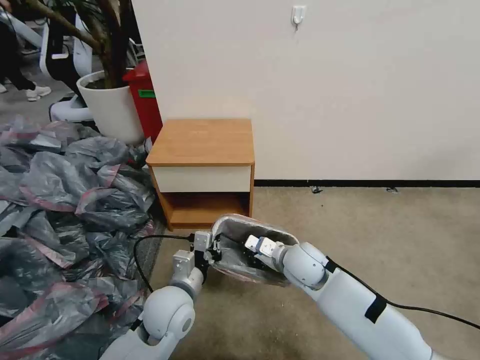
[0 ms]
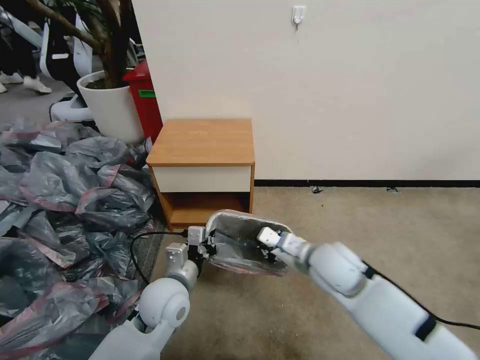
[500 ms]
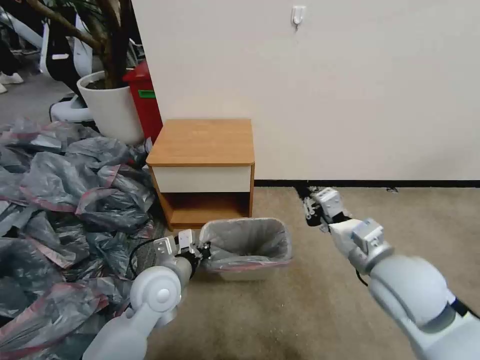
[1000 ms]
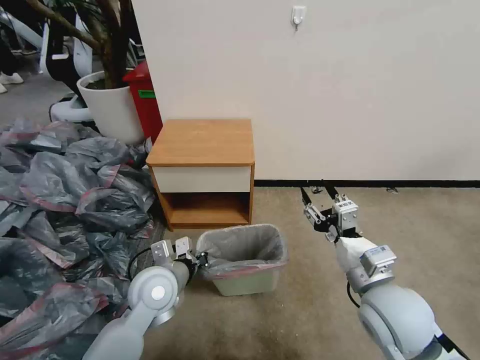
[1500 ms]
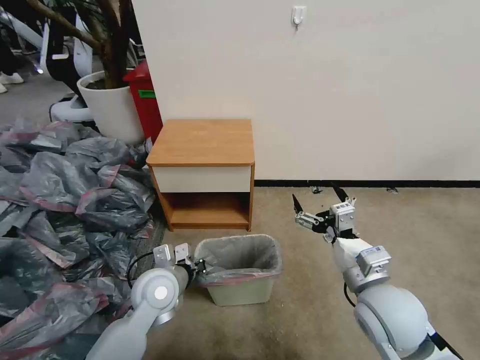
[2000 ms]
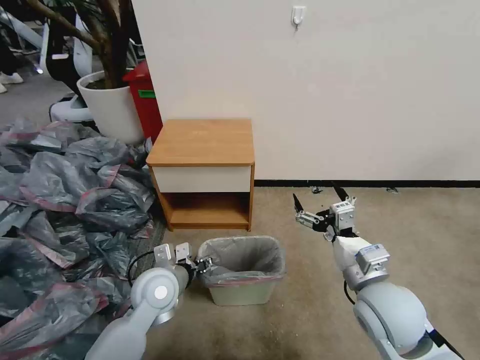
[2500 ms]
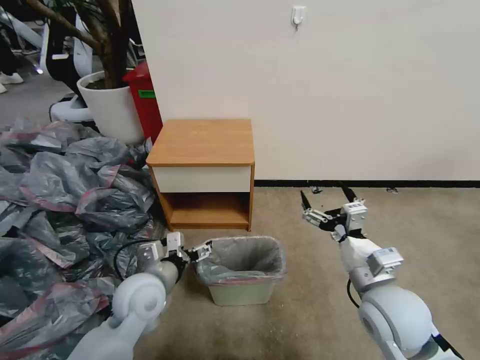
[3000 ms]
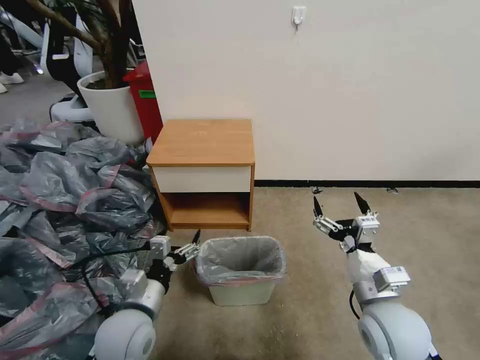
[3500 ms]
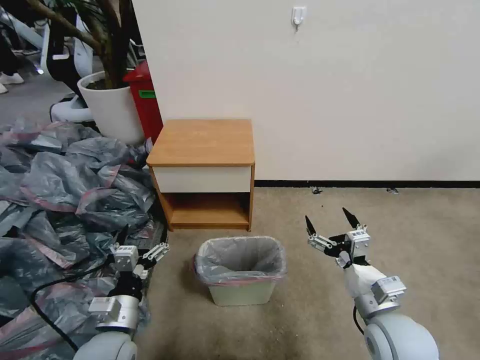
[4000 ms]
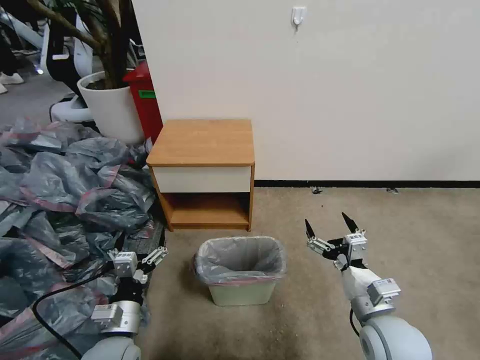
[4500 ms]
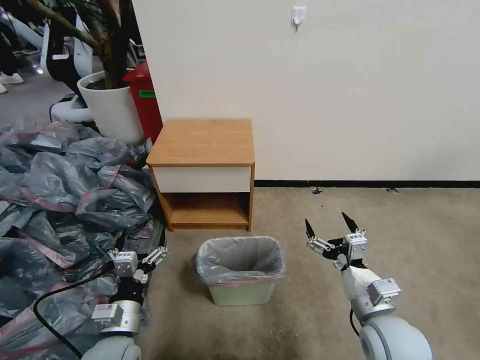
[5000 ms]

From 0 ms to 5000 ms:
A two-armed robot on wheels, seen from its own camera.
Task of the whole recording: Pick up the garbage bag from the table and place it over the trash can.
From 0 ms to 2500 ms: The right gripper is displaced backward, to the right and upward by approximately 20 cm, and opens, while the left gripper moves approximately 5 cm, and opens up.
From 2500 ms to 5000 ms: The right gripper shifts some 5 cm downward. Meanwhile the left gripper heads backward and to the left, covering about 15 cm, and opens up.

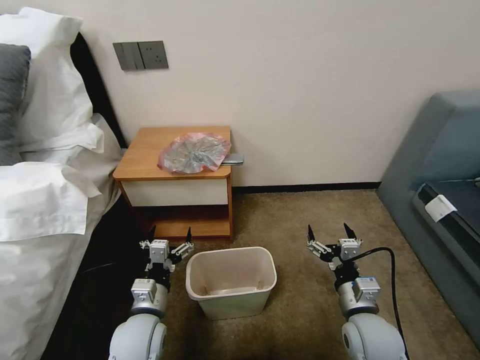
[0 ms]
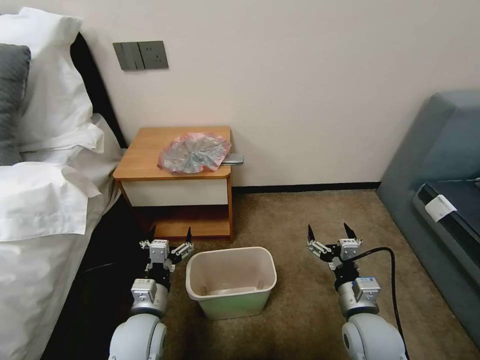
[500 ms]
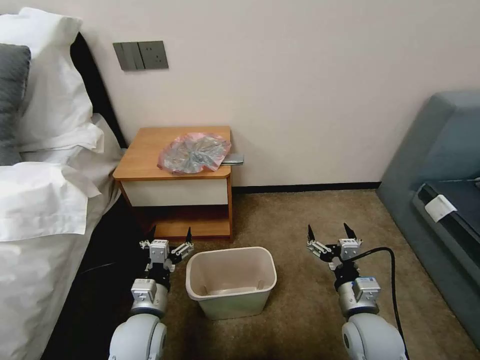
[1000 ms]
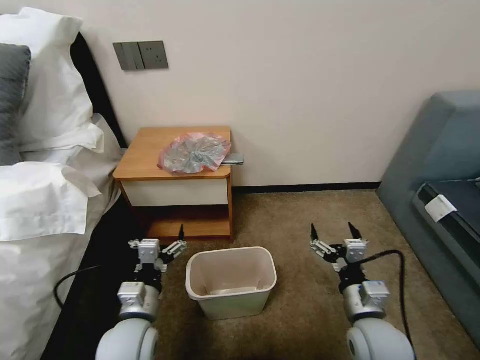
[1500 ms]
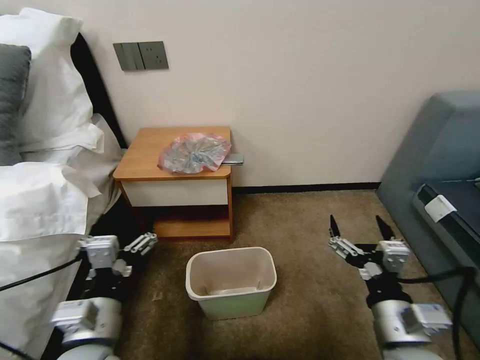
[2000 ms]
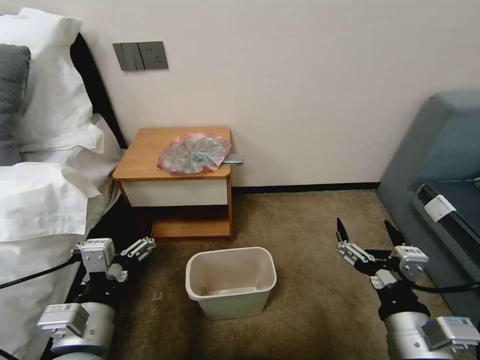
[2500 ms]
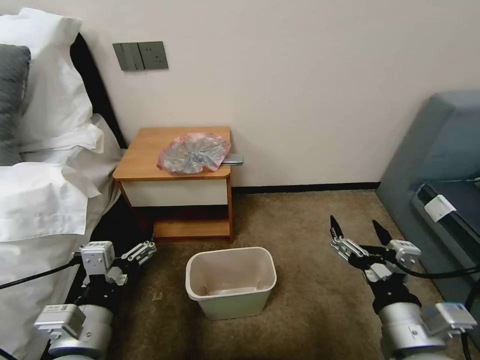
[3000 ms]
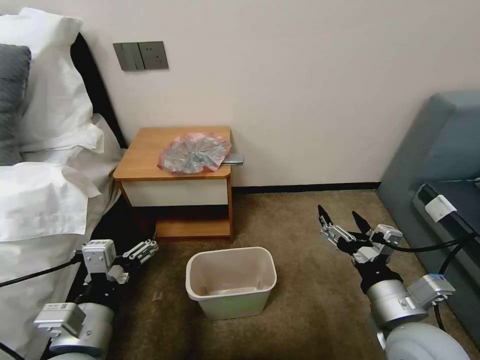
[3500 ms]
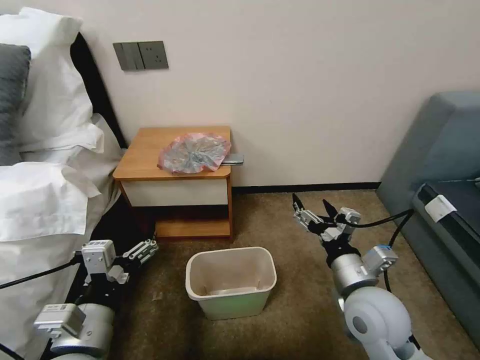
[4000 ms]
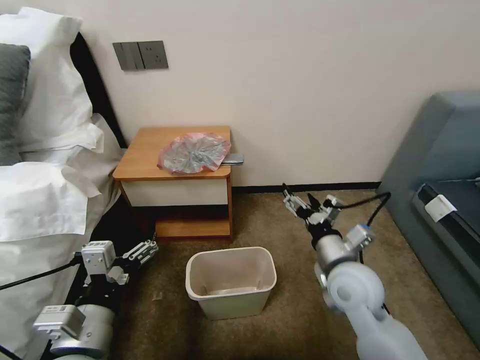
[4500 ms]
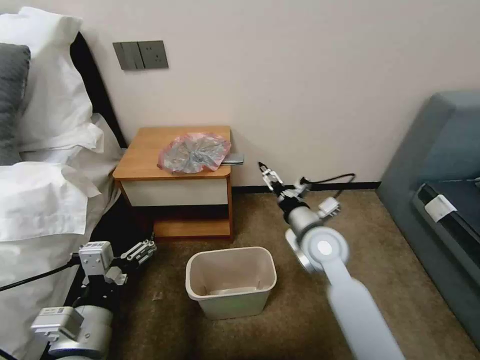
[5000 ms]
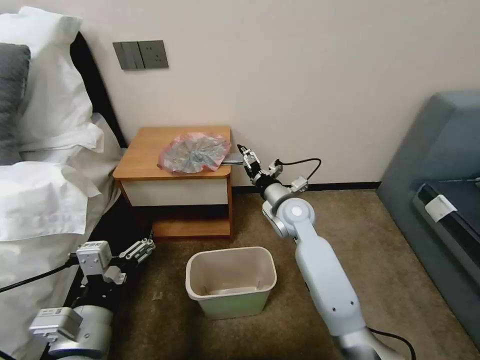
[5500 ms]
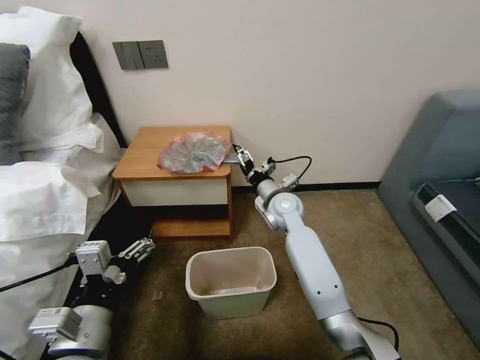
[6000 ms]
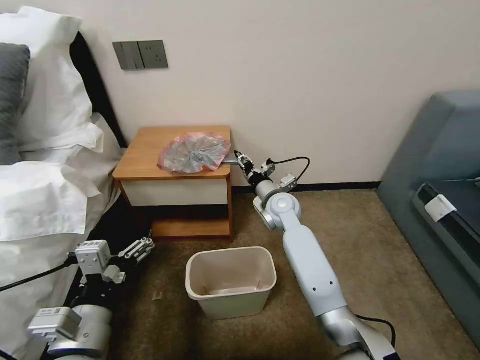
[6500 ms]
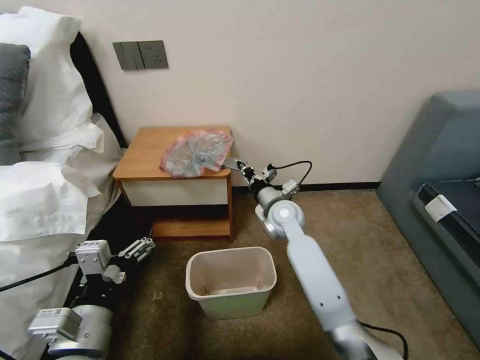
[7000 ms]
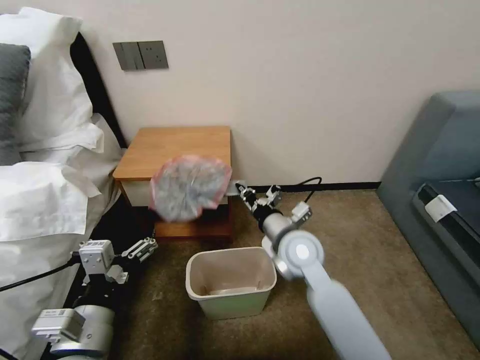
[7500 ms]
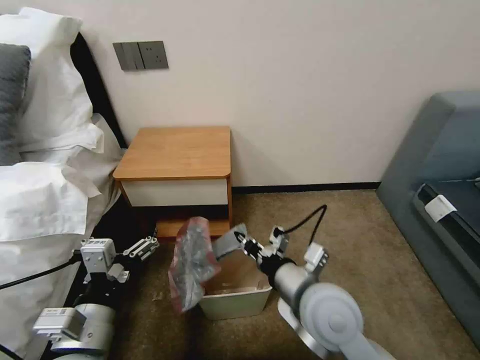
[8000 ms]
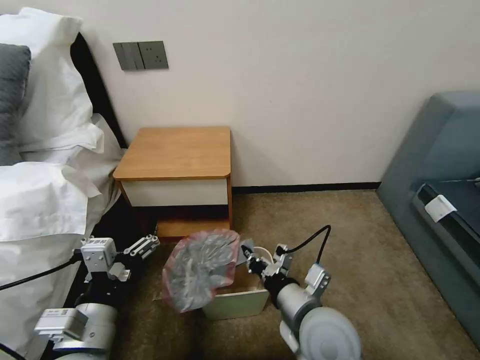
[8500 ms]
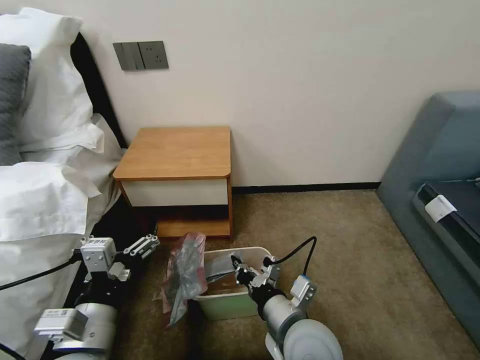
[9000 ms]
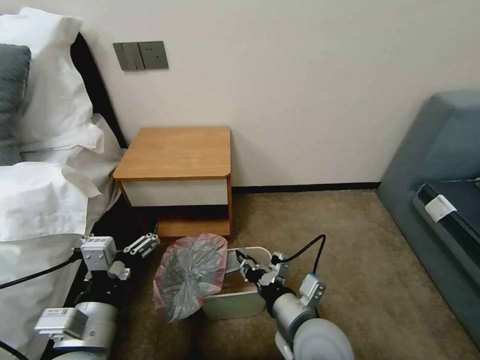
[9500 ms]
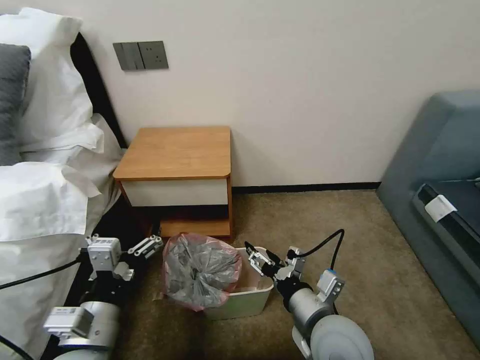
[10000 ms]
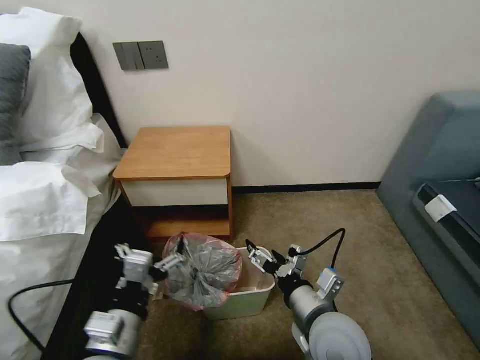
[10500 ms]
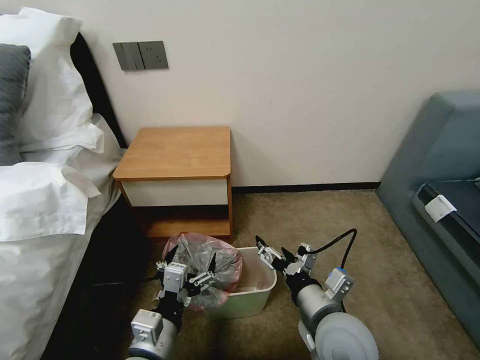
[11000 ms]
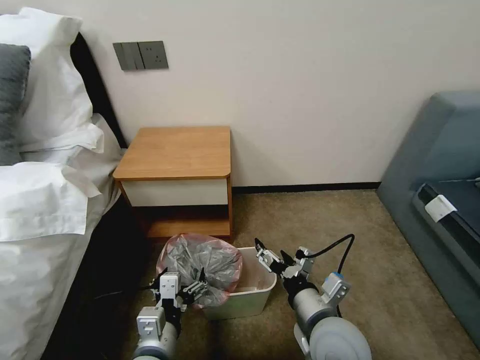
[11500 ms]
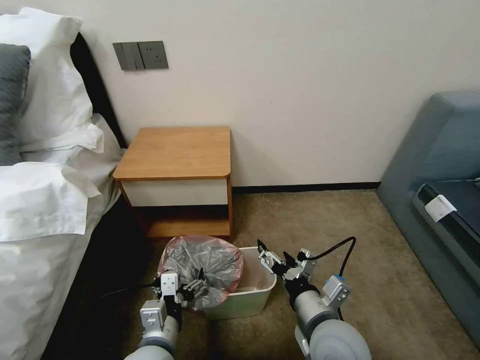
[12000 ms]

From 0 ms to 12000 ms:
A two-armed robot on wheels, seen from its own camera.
Task of the whole recording: Pick up the garbage bag from the table and place it over the trash can.
From 2000 ms to 4000 ms: The right gripper heads forward, covering some 10 cm.
From 4000 ms to 6000 ms: The right gripper goes some 30 cm forward and to the left.
From 6000 ms to 8000 ms: The right gripper moves backward, roughly 25 cm, and closes its fingers.
From 8000 ms to 10000 ms: The right gripper ends up roughly 5 cm from where it was, and opens.
From 10000 ms to 12000 ms: The left gripper travels downward and to the right by roughly 10 cm.

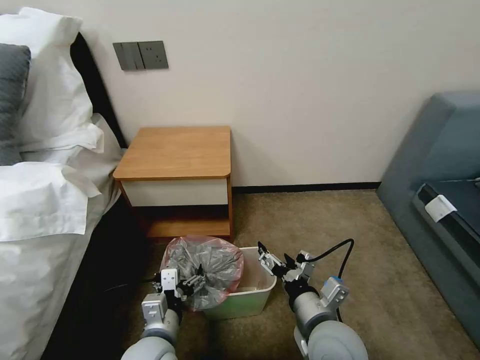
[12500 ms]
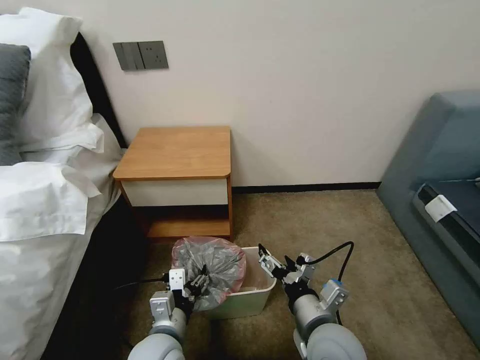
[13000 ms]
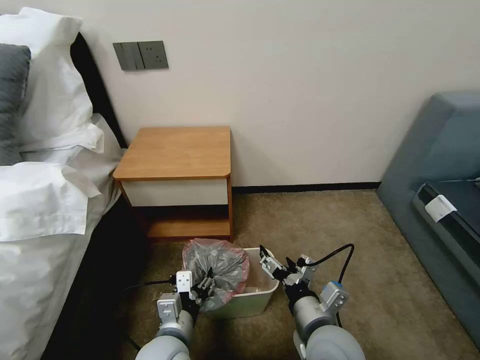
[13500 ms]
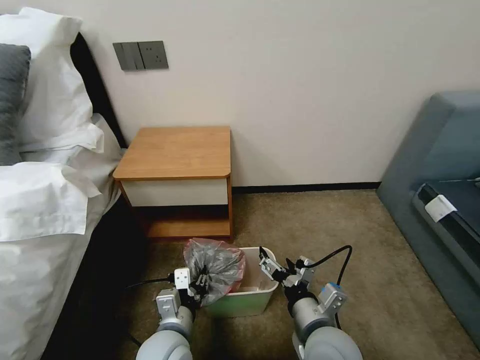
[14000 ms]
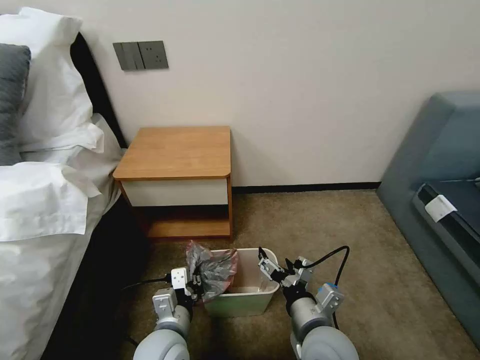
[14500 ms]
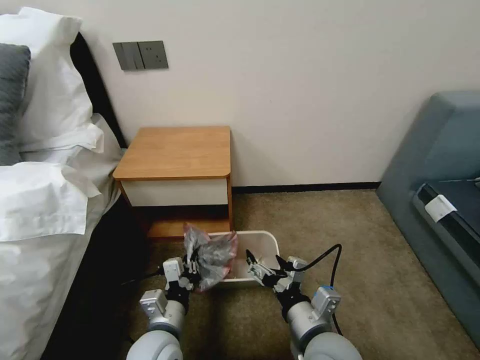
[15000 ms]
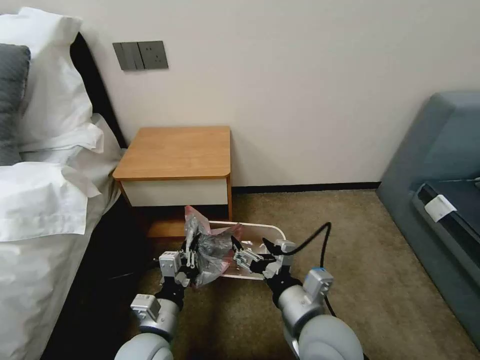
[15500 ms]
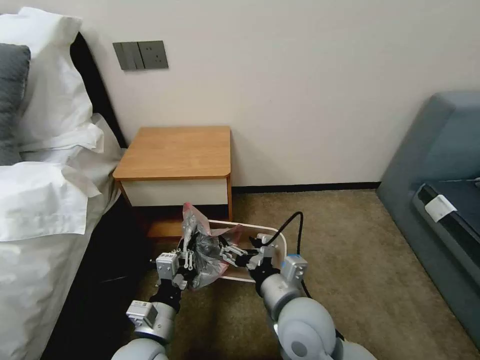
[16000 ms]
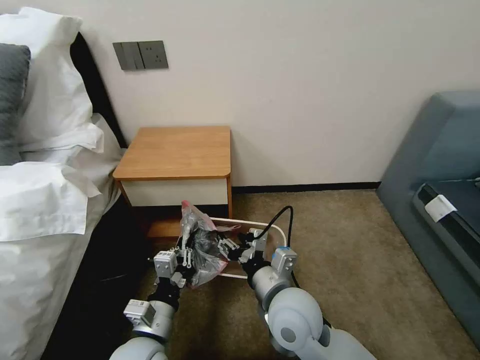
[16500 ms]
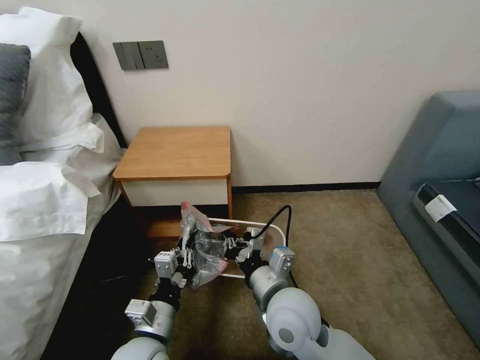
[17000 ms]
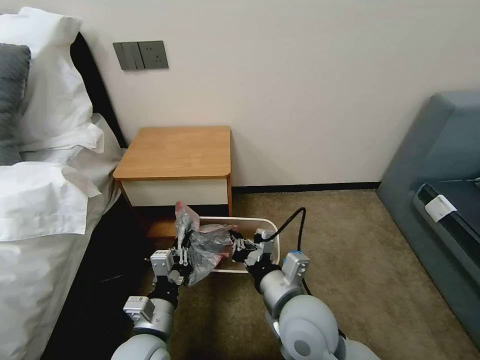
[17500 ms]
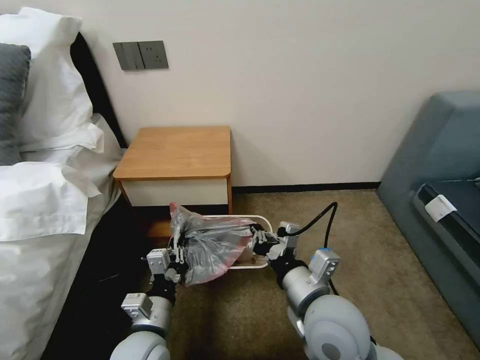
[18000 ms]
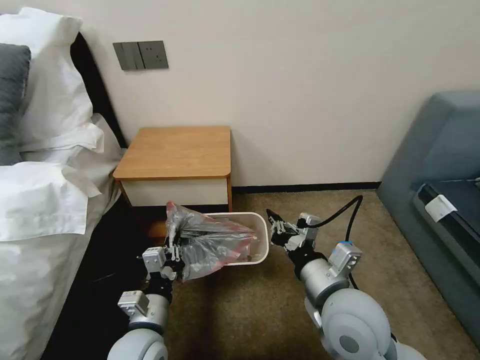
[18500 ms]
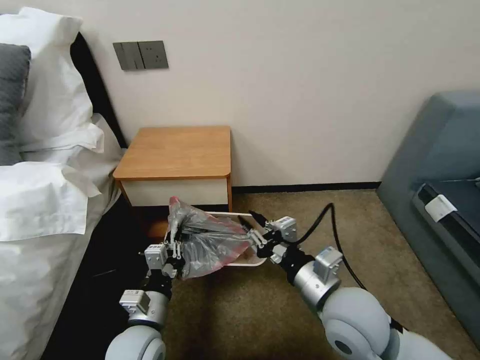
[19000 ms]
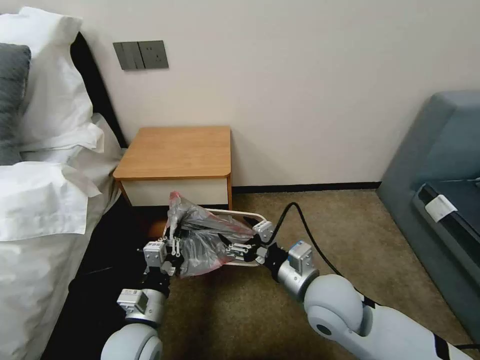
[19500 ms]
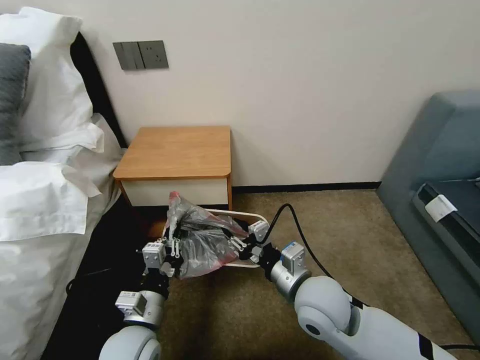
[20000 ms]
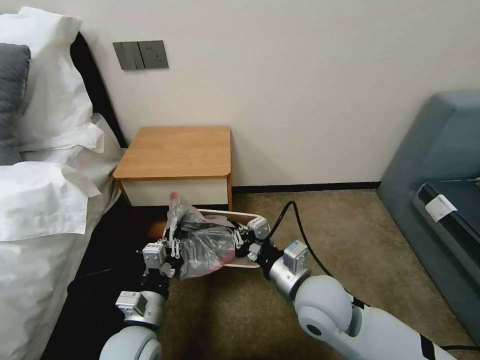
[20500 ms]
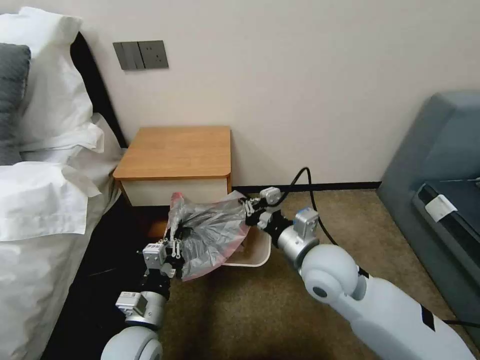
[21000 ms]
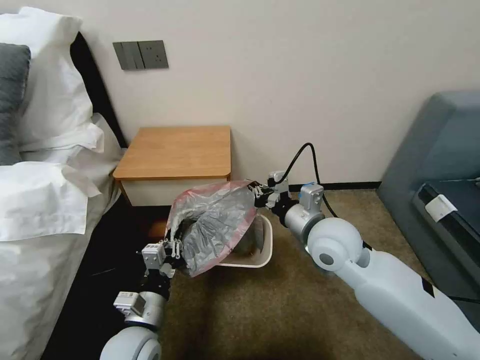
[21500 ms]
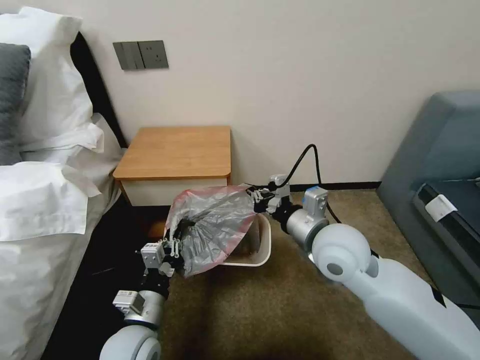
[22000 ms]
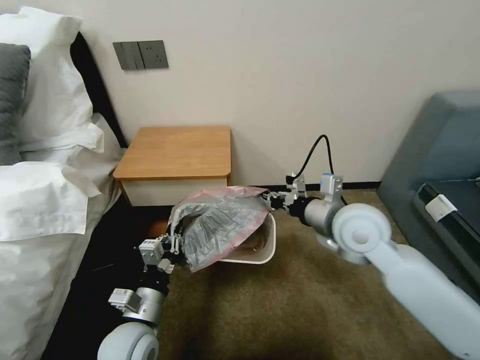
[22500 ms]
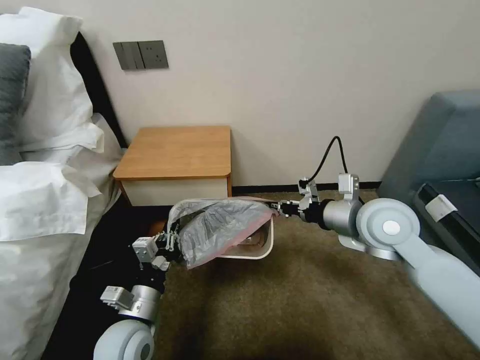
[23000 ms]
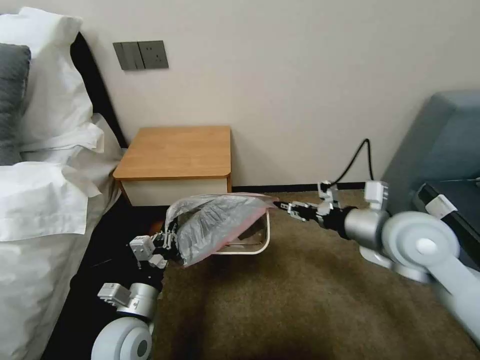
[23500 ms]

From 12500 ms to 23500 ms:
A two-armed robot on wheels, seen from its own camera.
Task of the whole recording: Pick up the garbage bag from the table and place it over the trash can.
From 12500 ms to 14500 ms: The left gripper closes up.
From 14500 ms to 16000 ms: The right gripper heads upward, covering about 5 cm.
From 16000 ms to 18000 ms: The right gripper closes.
From 18000 ms to 20000 ms: The right gripper moves about 5 cm, and opens.
From 20000 ms to 21500 ms: The right gripper goes roughly 10 cm forward and upward, and closes up.
From 21500 ms to 23500 ms: The right gripper heads to the right and upward, covering approximately 10 cm.
